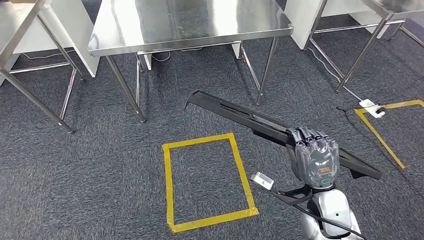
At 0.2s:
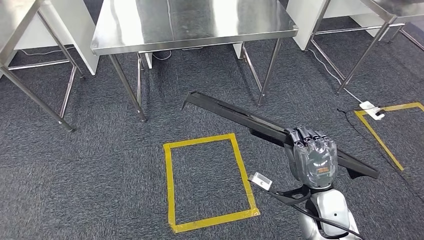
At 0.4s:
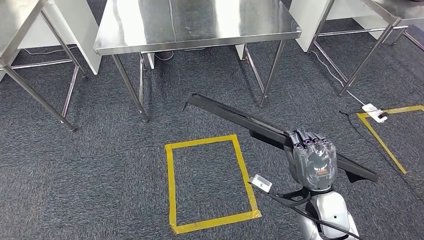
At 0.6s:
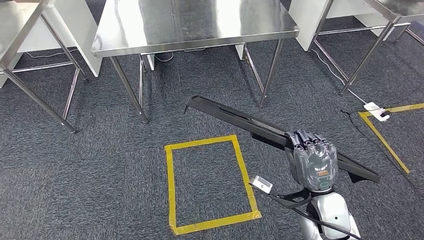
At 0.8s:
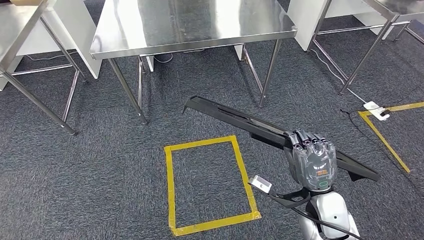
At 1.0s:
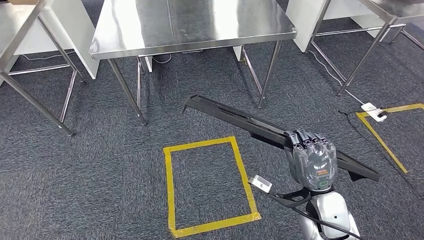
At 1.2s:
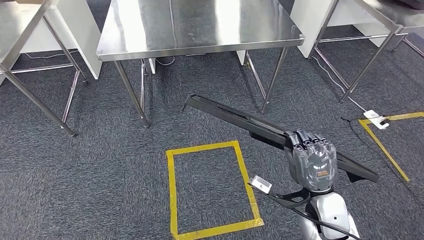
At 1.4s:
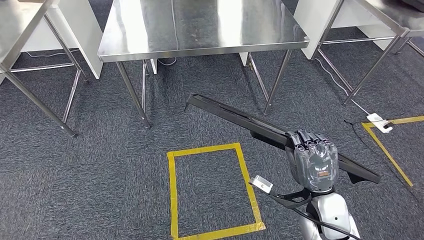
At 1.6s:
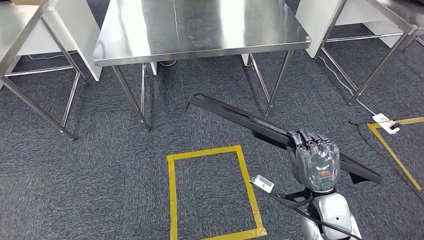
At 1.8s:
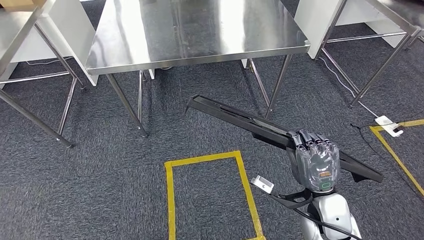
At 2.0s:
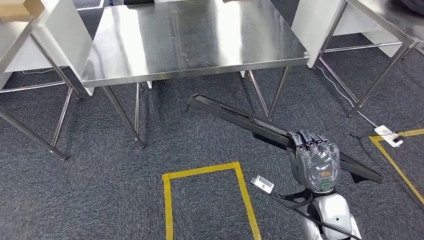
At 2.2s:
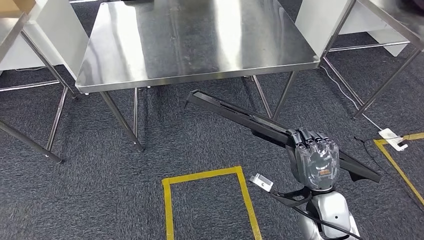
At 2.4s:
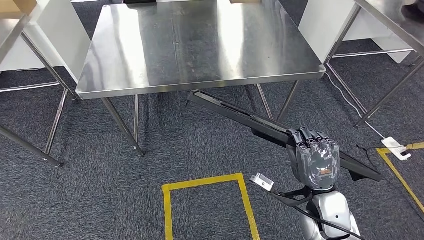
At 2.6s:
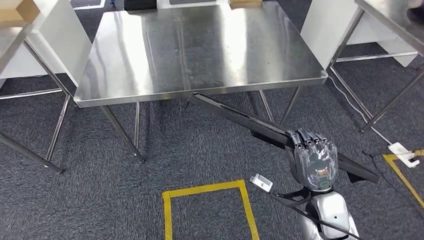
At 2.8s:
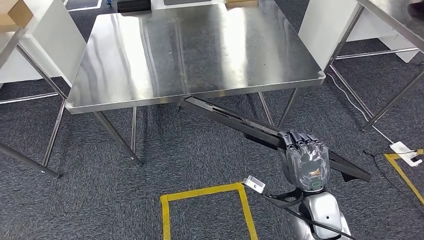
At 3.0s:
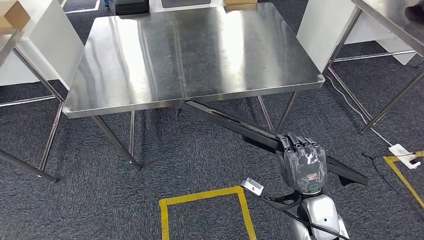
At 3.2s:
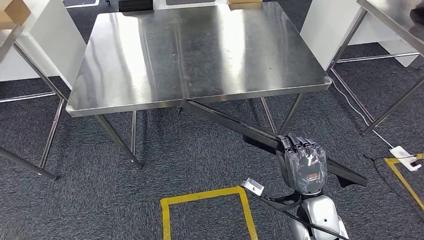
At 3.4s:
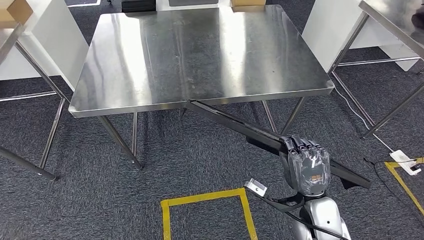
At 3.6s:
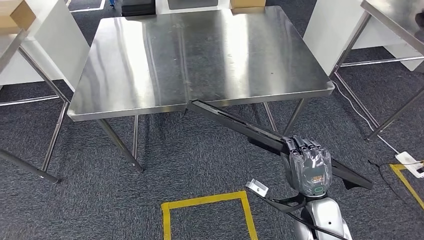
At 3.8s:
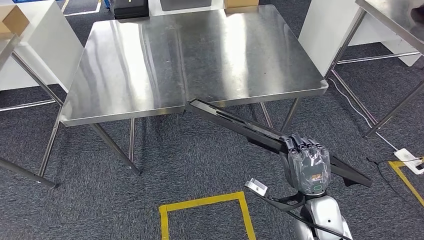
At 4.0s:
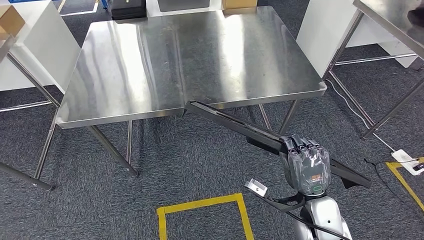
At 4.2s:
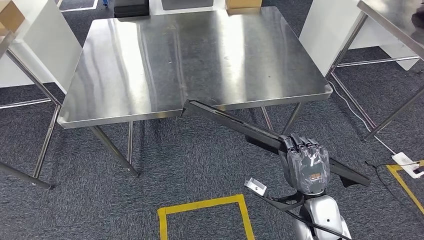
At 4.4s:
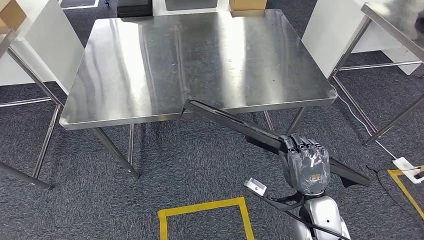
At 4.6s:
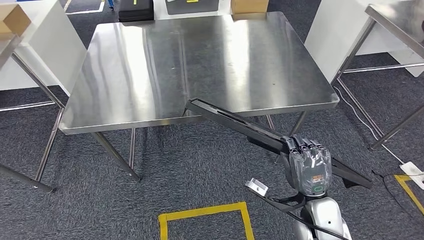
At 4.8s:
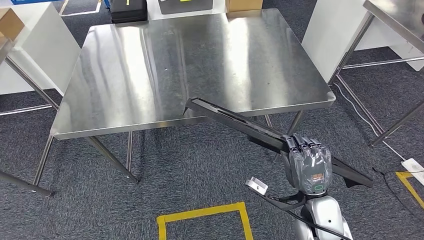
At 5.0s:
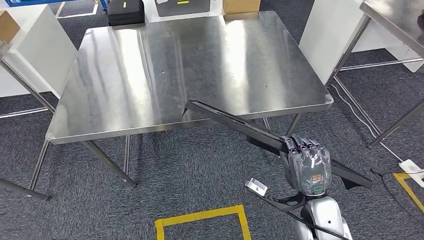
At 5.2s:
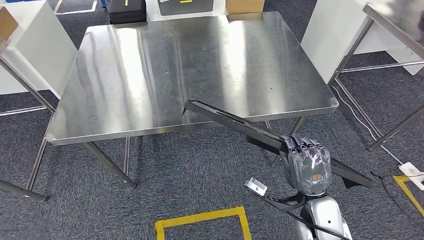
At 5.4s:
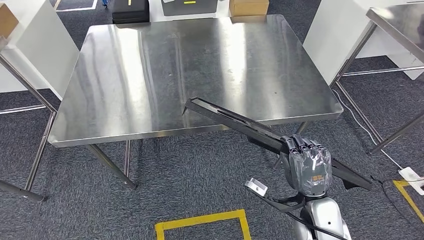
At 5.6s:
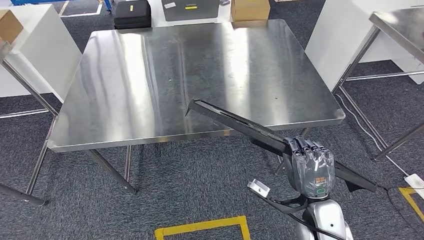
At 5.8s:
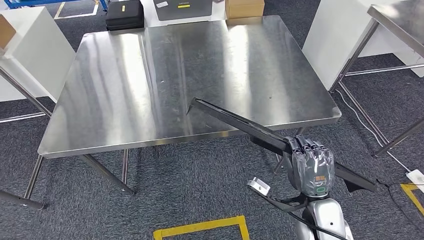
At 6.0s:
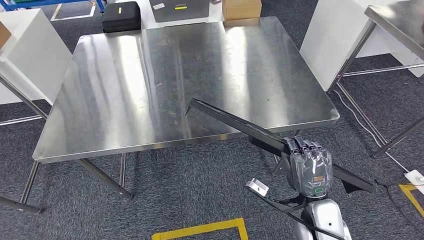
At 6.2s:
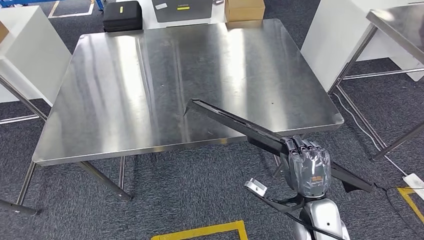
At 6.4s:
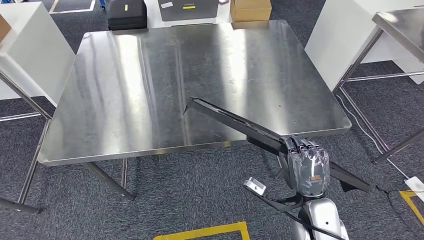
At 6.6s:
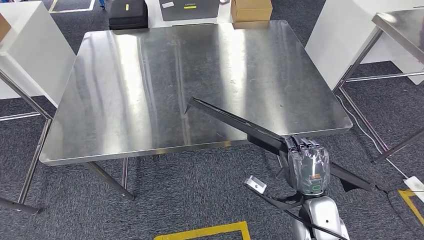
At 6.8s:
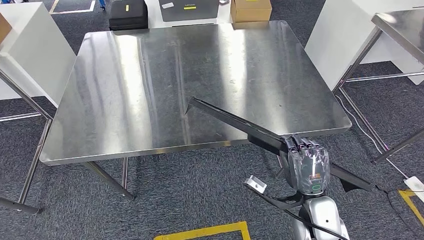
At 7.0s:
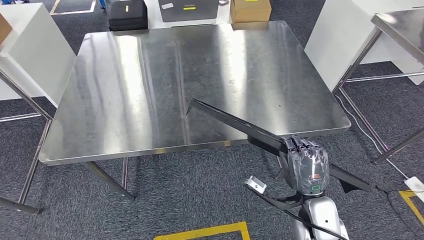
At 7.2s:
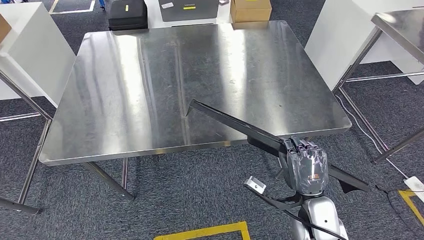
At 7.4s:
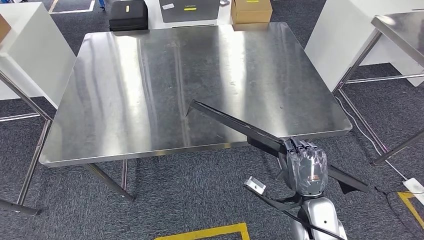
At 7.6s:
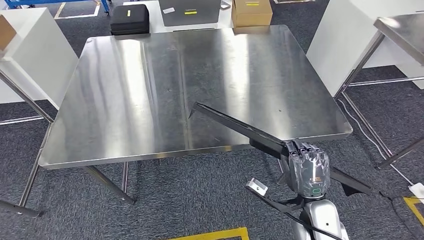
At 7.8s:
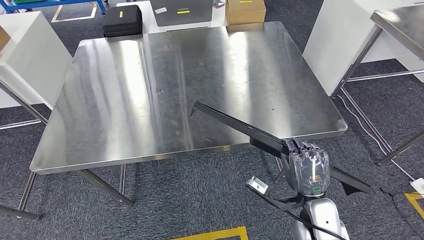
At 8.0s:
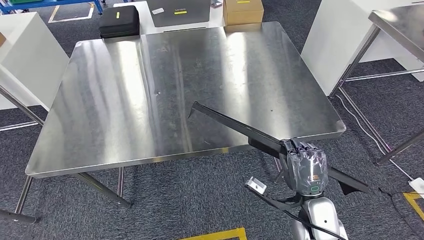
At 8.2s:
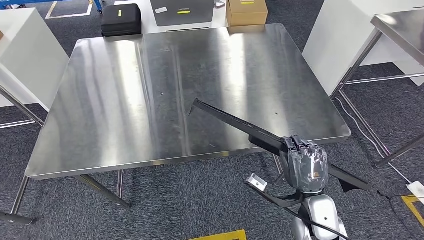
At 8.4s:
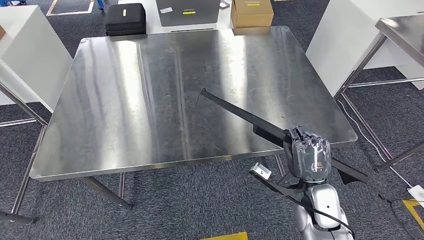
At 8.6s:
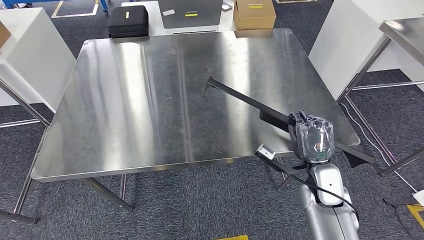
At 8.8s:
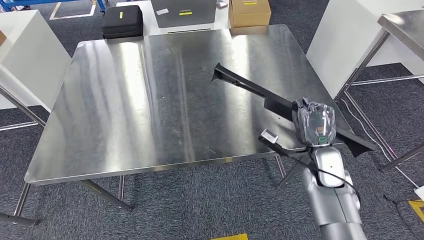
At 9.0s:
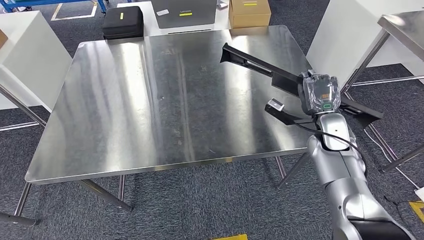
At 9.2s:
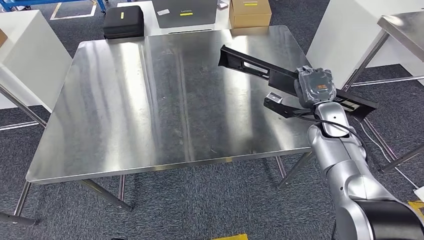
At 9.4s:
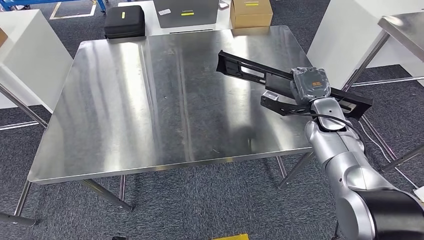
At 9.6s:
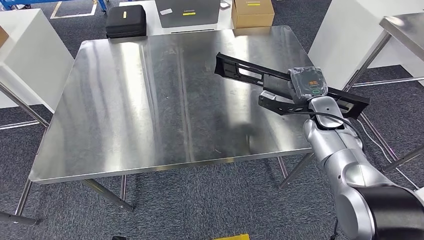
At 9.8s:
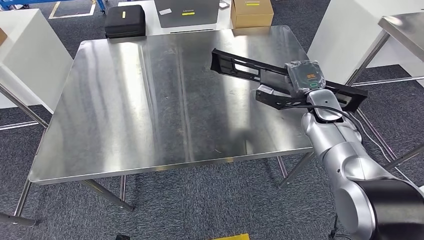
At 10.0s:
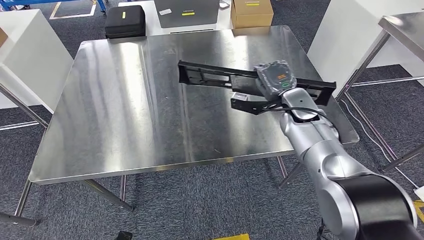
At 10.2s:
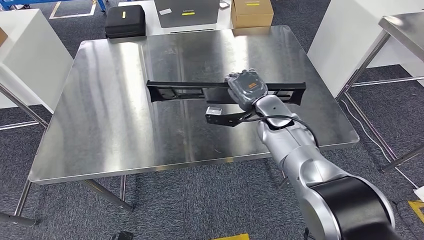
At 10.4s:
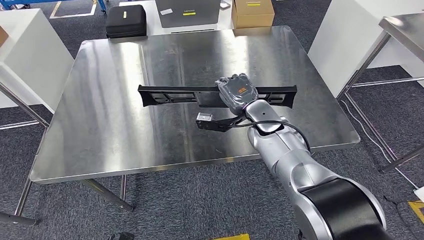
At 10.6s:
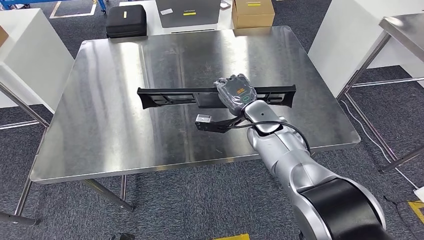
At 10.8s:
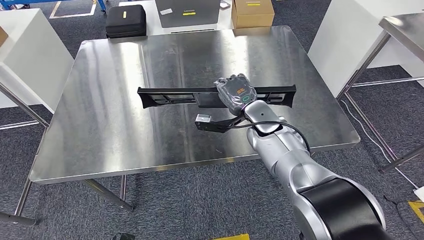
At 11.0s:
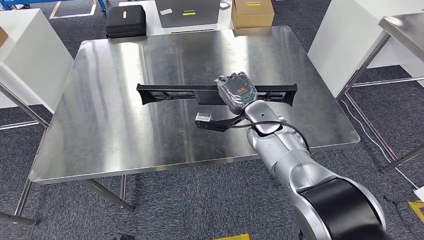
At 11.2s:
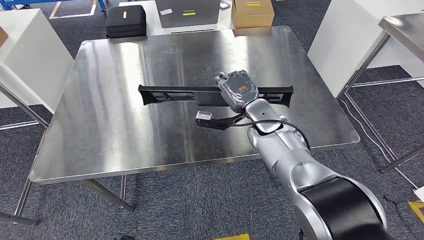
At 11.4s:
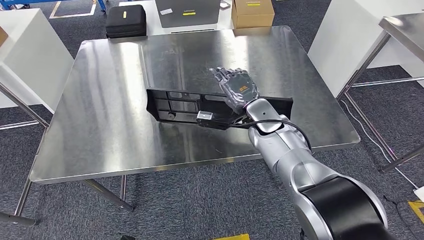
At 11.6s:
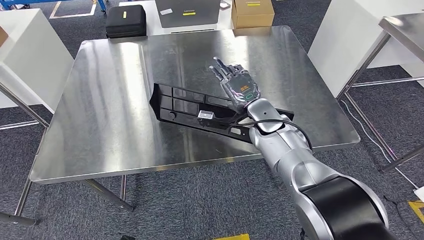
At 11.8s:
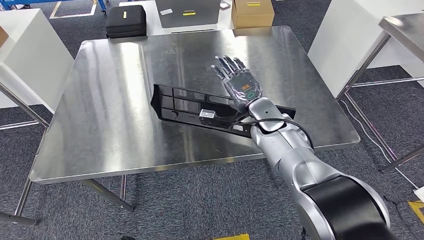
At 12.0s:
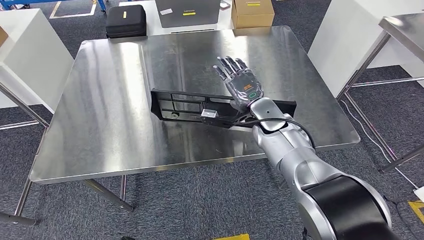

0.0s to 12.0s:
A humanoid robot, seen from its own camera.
Step, 0.0s to 5.8s: Move the large material to the workbench.
10.4s to 12.0s: There are only small adjustments of the hands.

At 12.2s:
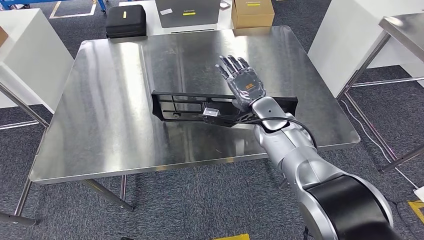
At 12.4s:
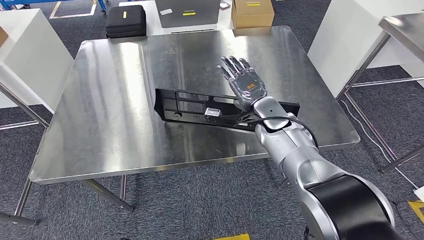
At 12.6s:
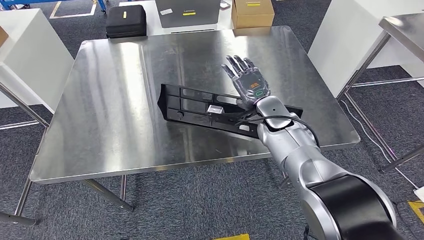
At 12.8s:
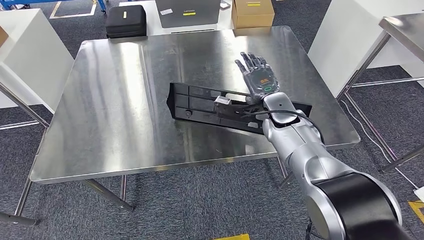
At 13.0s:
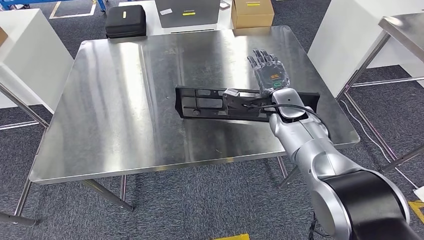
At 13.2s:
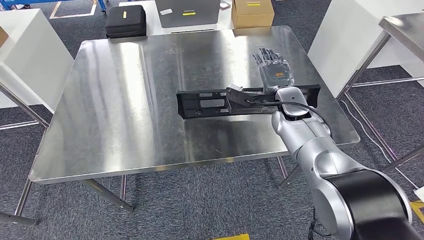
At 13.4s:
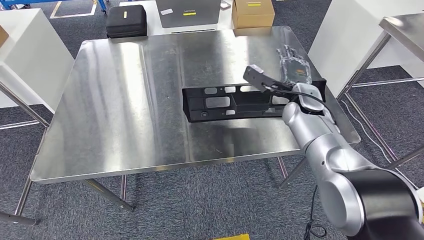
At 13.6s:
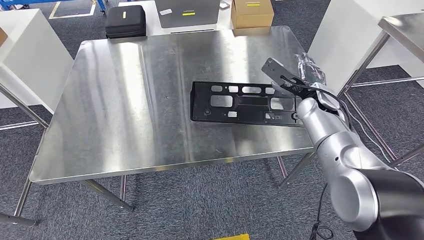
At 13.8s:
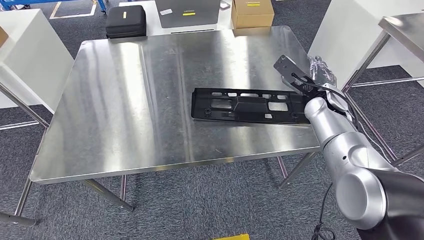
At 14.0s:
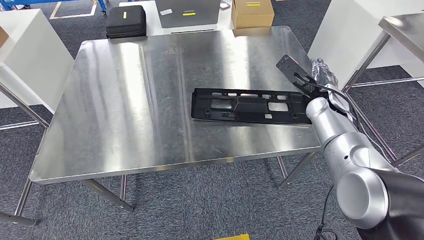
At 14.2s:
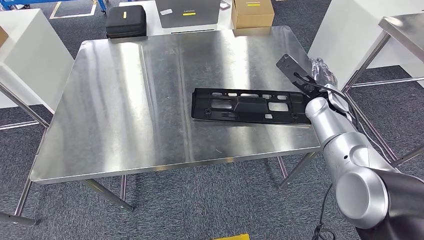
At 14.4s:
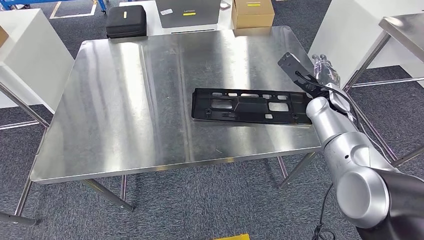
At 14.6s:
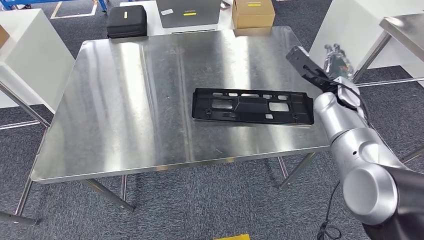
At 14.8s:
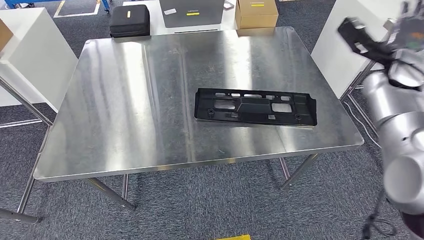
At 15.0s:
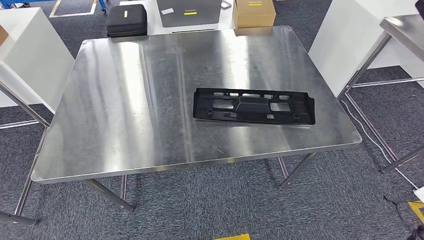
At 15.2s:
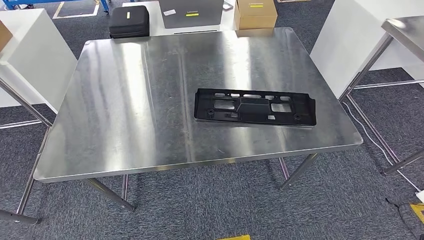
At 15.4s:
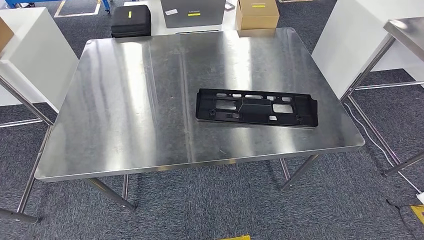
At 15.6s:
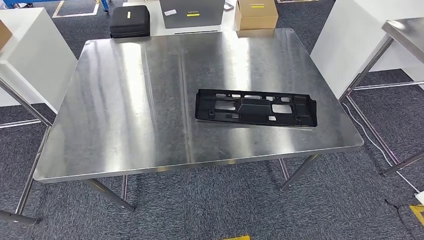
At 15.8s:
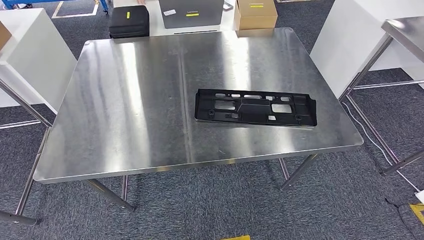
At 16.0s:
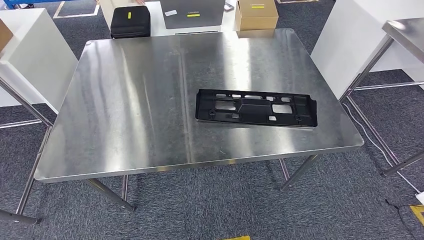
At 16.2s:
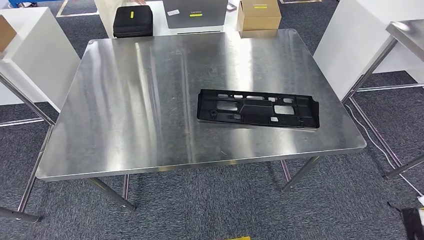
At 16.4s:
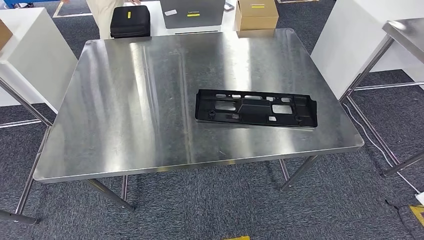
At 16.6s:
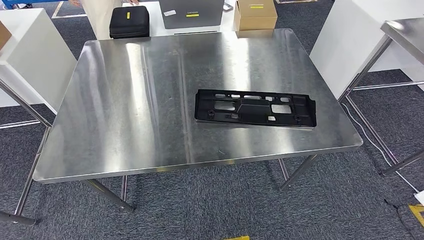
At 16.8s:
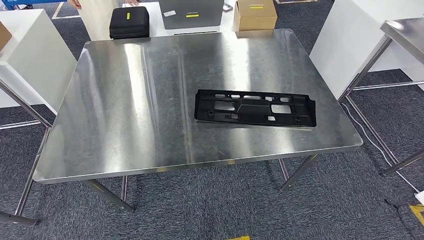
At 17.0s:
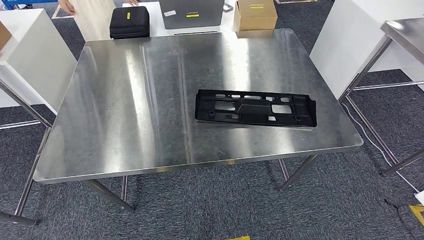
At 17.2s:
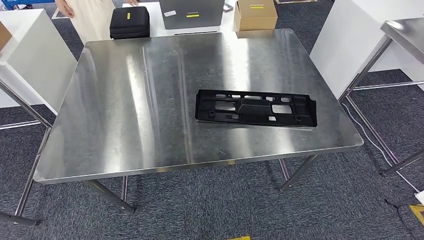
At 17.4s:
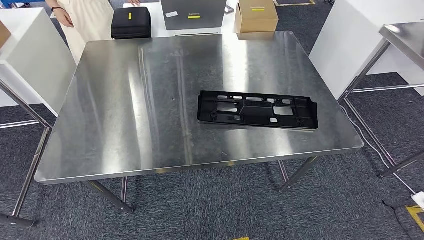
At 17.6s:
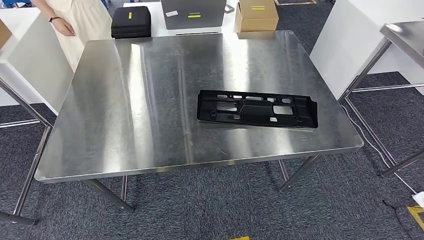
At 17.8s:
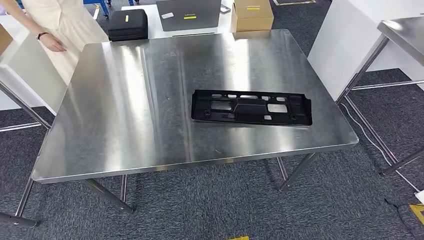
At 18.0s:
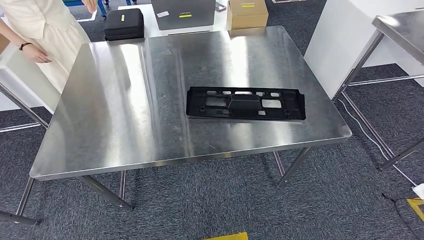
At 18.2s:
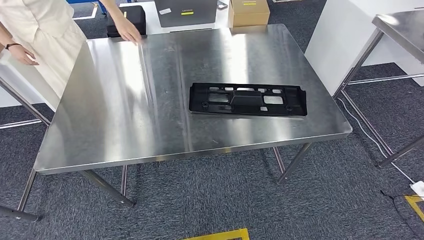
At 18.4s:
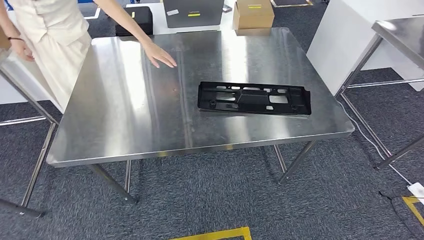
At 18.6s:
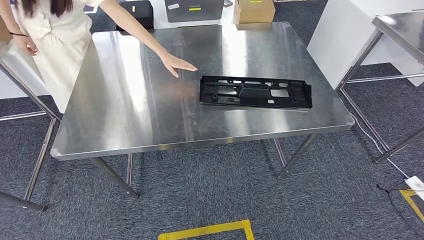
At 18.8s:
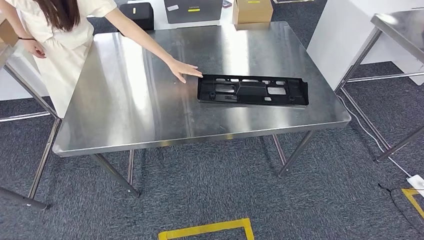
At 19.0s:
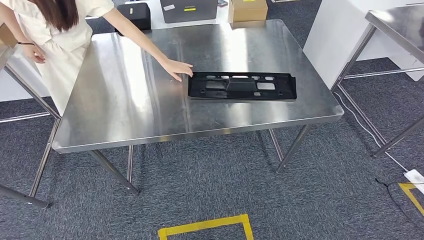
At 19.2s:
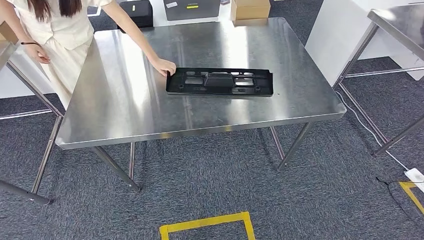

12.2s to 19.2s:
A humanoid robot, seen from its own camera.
Step, 12.2s to 15.2s: Insert the large material into the corresponding slot on the workbench.
13.6s to 15.0s: The right hand travels to the right and upward by approximately 25 cm.
15.0s to 16.4s: The right hand is displaced downward and backward by roughly 60 cm.
16.4s to 17.8s: The right hand is displaced to the left by roughly 20 cm.
